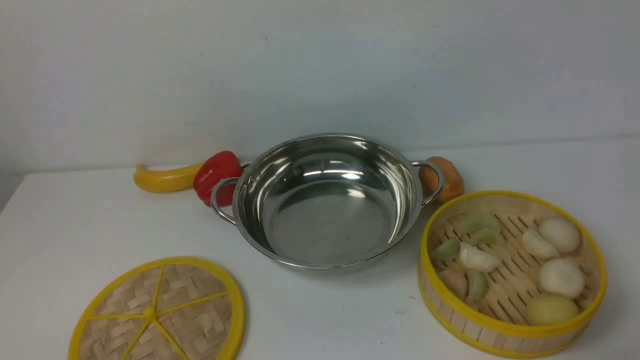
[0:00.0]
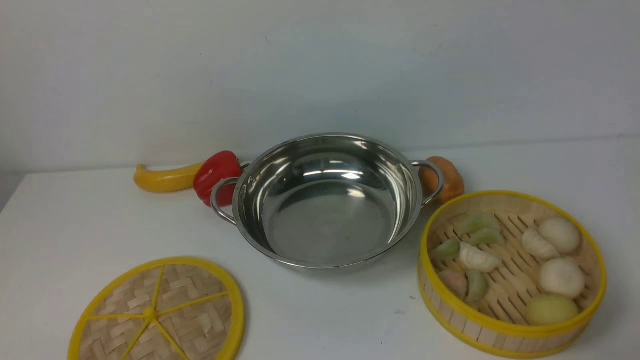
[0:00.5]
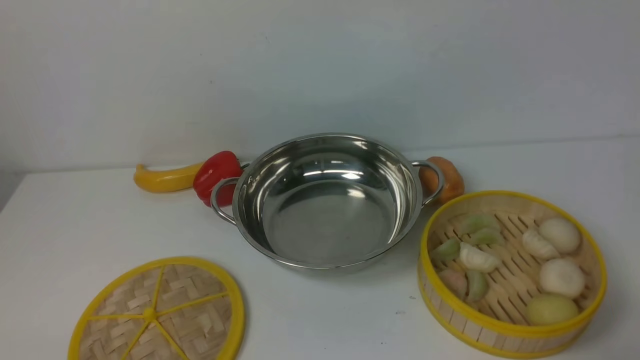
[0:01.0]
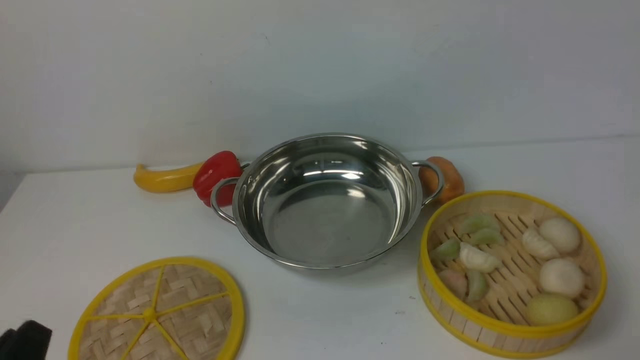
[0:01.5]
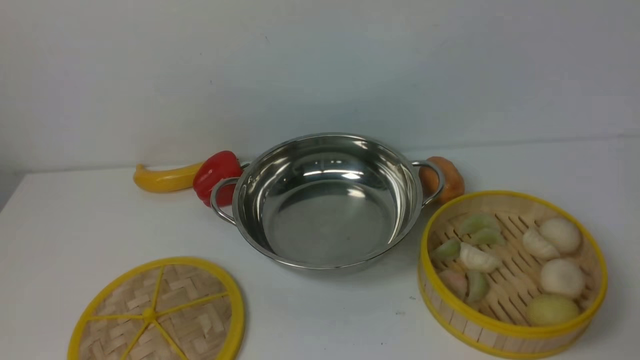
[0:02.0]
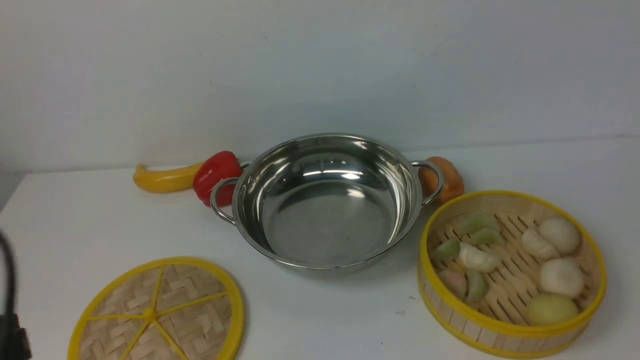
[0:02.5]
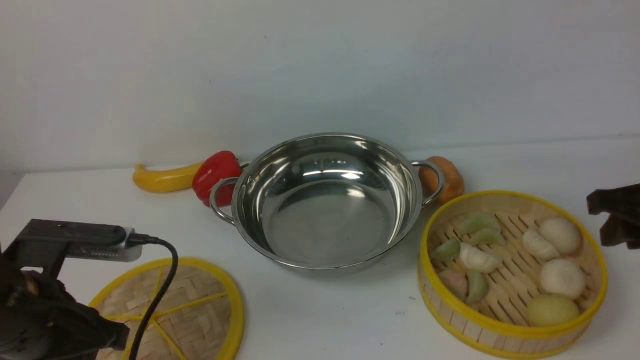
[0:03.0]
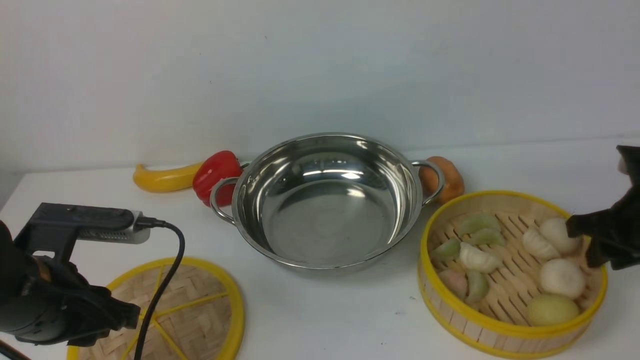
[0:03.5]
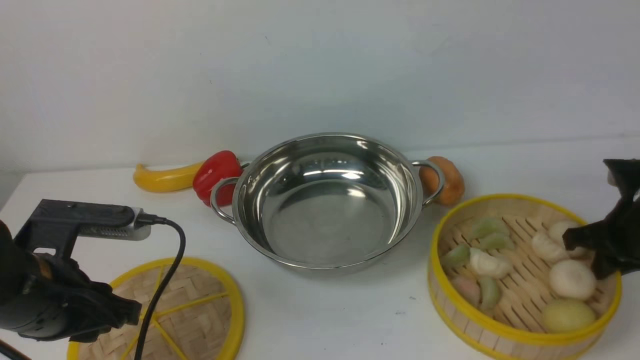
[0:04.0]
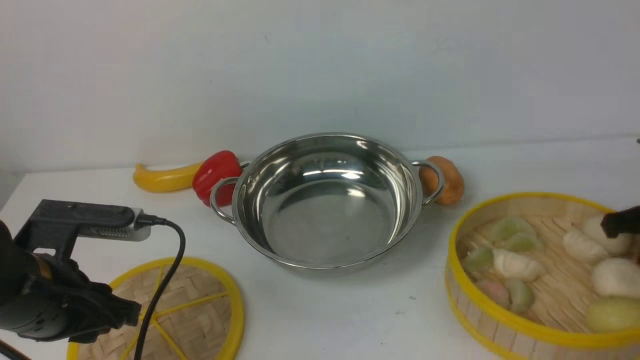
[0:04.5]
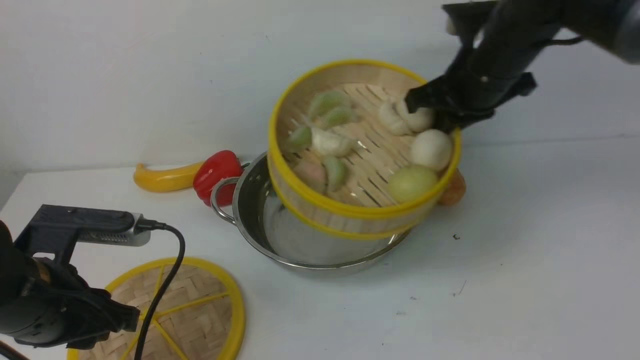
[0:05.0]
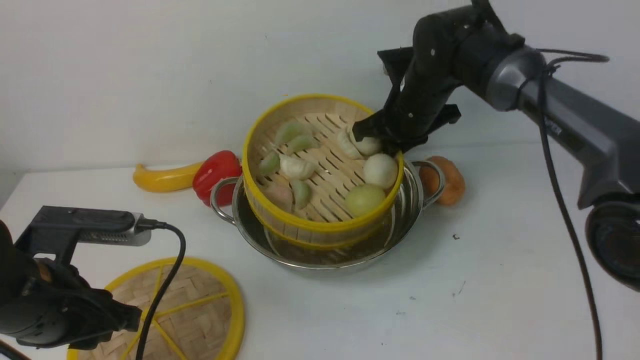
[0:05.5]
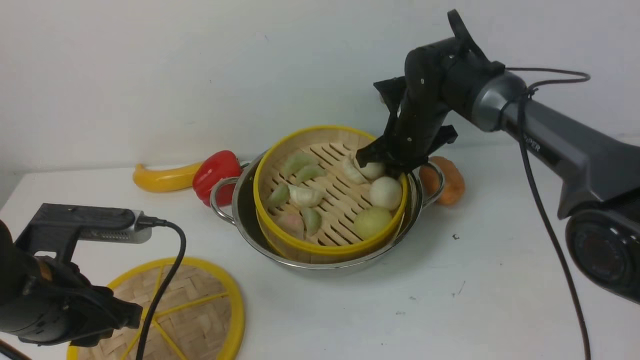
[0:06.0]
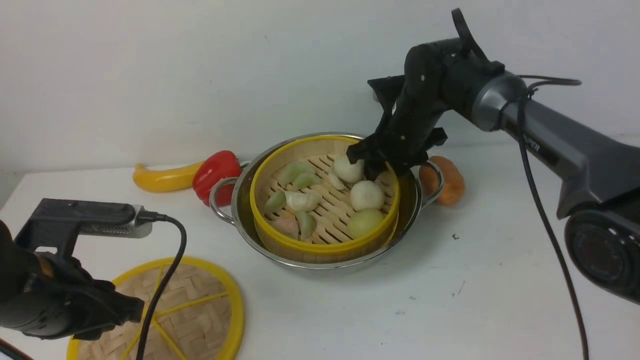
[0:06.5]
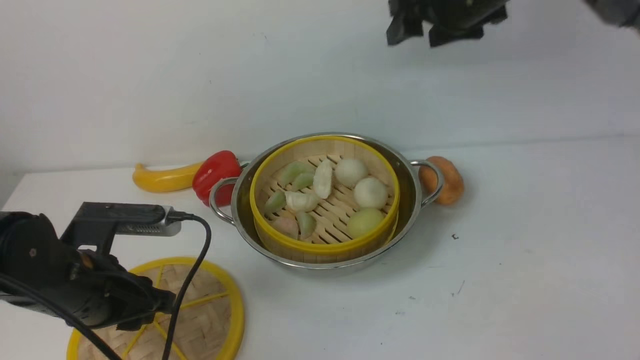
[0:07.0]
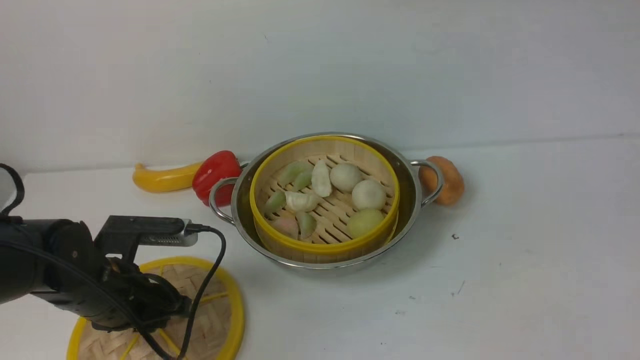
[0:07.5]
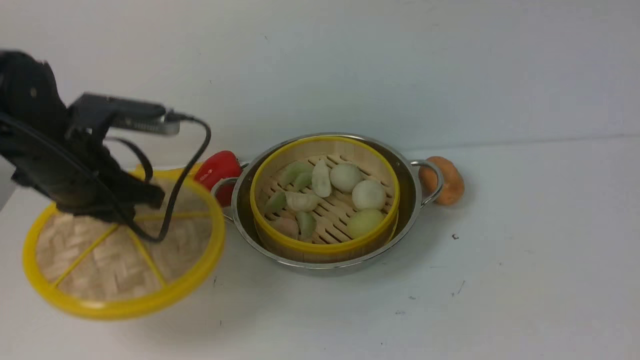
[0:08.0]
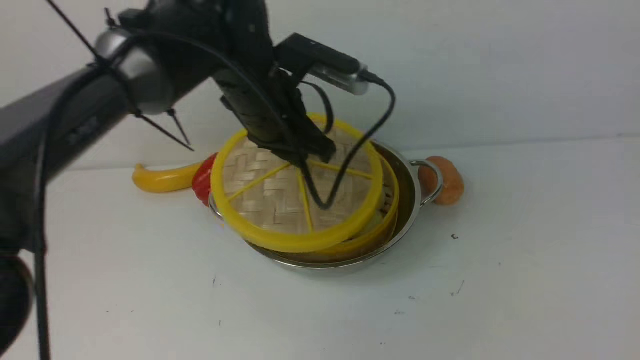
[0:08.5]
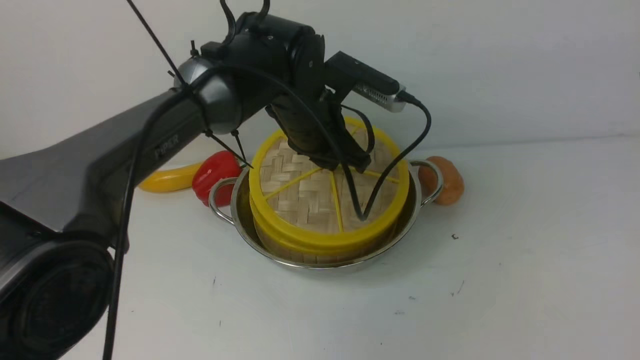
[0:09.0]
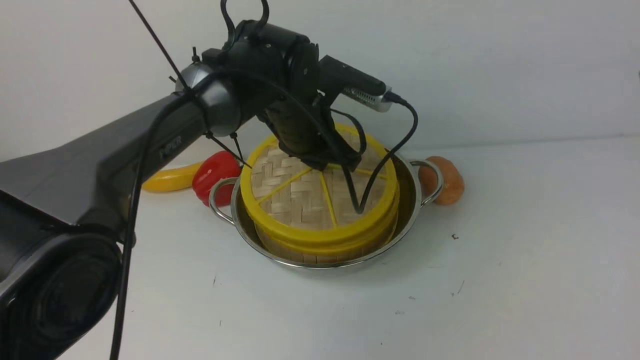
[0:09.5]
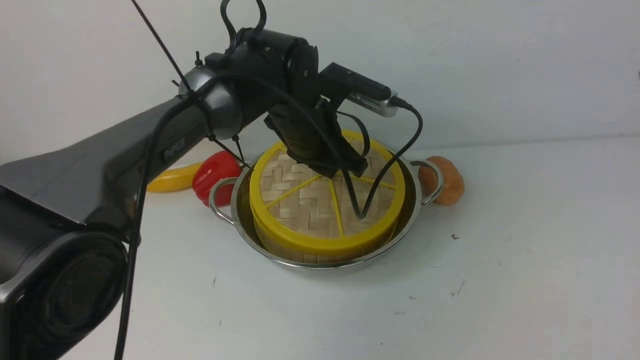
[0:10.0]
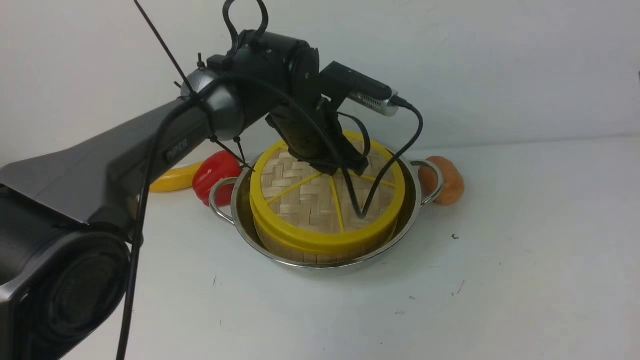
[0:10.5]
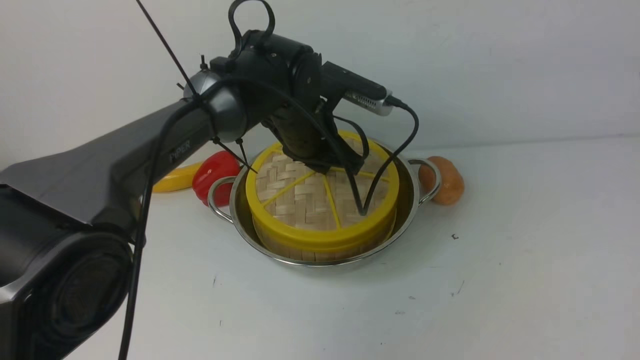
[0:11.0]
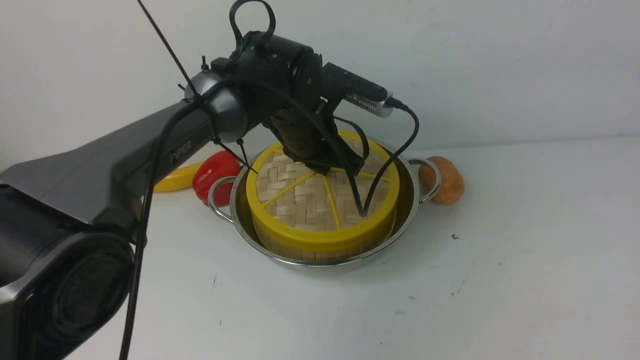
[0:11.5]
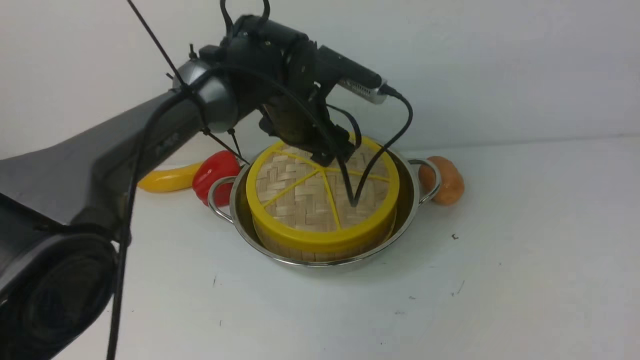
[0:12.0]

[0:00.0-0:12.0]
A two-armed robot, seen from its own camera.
Task of the whole recording: place the steamer in the pot on the white table, and put the lid on the steamer.
Step, 0:00.0 to 0:04.0: use the right arm to lift the steamer closest to it.
Step, 0:04.5 to 0:06.5: use the right arm to put the steamer into the iron steamer pot in the middle.
Step, 0:07.0 to 0:08.0: use the left arm to lift the lid of the steamer.
0:02.0 to 0:04.0: The left gripper shifts roughly 15 cm forward; the right gripper goes roughly 25 cm forward.
0:04.0 to 0:06.0: The right gripper goes roughly 30 cm to the left and forward.
0:06.0 to 0:08.0: The right gripper shifts approximately 40 cm upward and backward, and opens up, while the left gripper heads forward, covering about 10 cm, and closes its fingers.
0:08.0 to 0:10.0: The left gripper travels to the right and forward by some 20 cm. Meanwhile the right gripper goes about 10 cm downward.
0:10.0 to 0:12.0: The left gripper moves approximately 5 cm, and opens up.

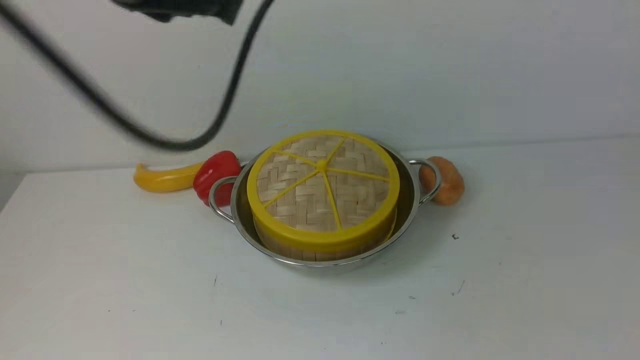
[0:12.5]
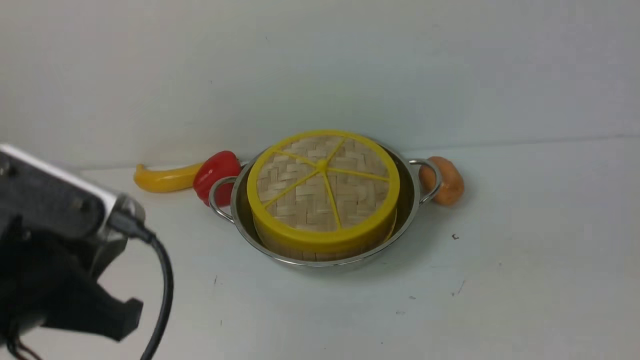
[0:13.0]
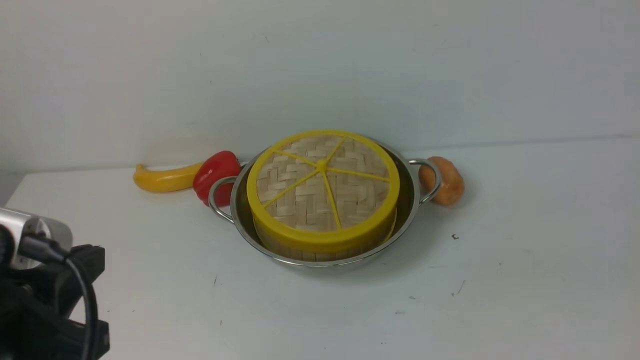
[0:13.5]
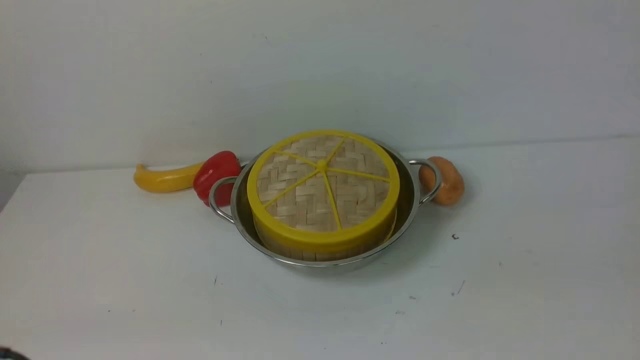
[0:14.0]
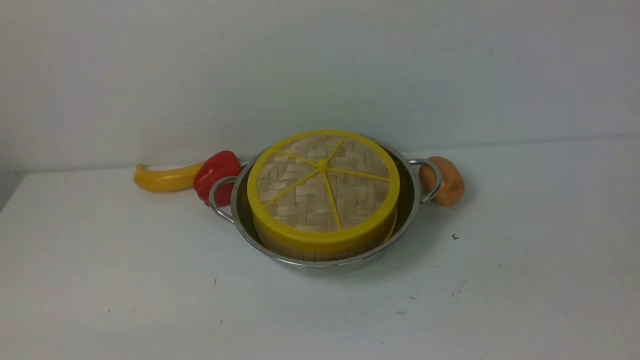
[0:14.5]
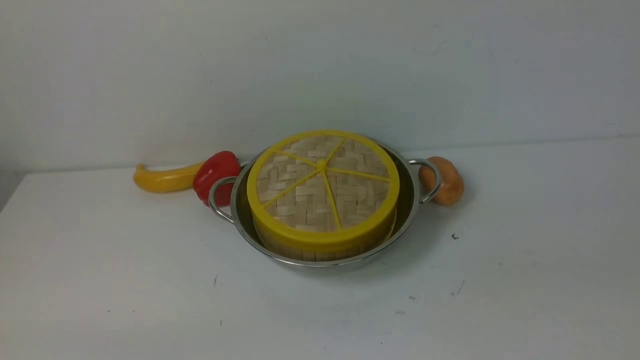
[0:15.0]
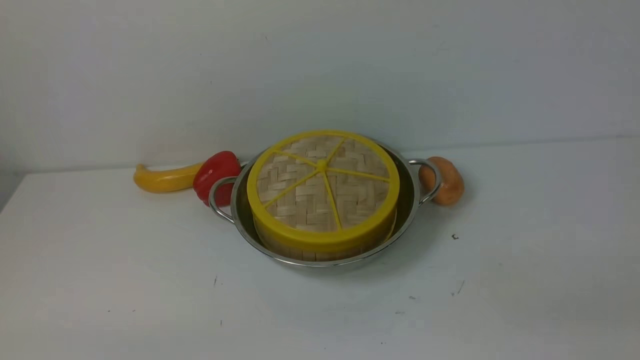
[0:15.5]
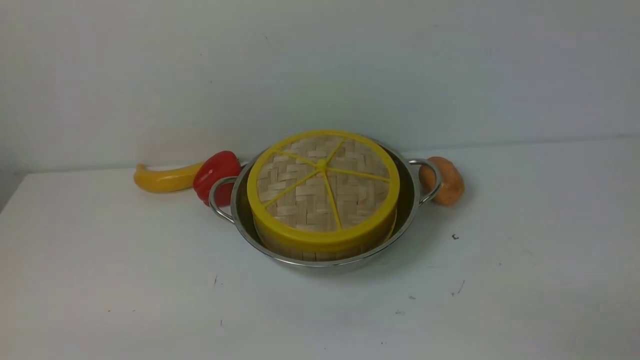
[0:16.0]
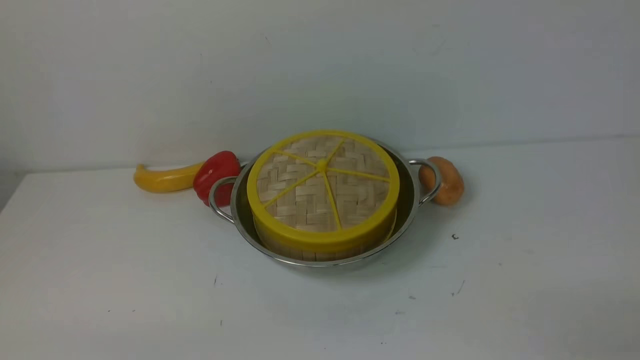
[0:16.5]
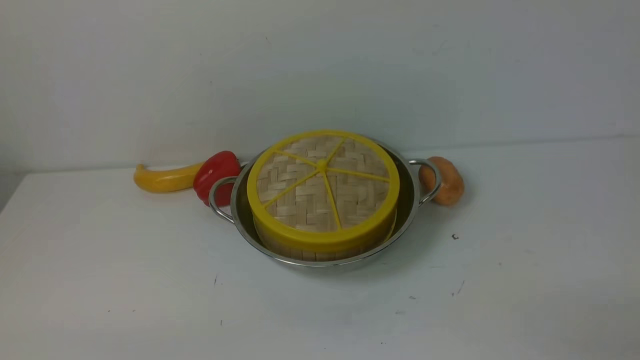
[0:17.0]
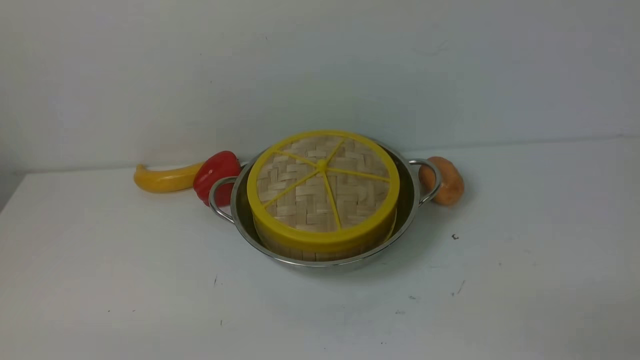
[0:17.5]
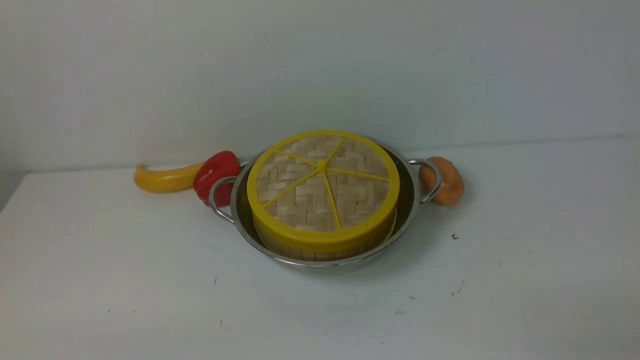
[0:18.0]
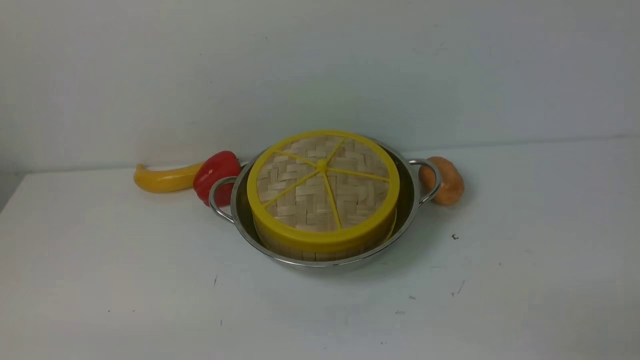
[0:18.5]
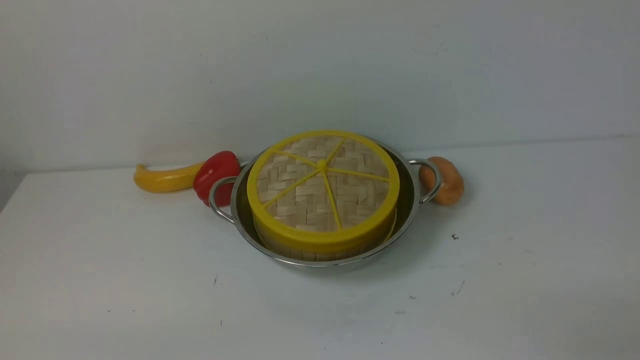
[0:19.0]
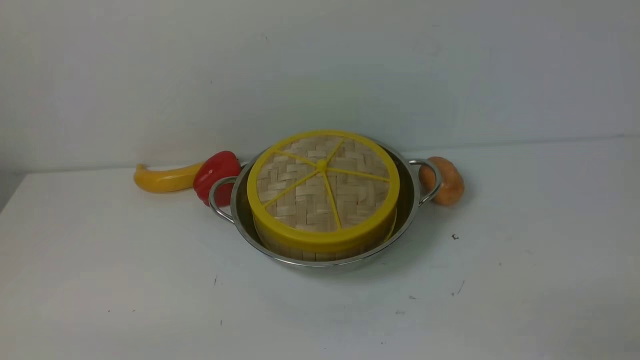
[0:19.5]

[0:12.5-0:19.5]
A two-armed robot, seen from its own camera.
Task of the whole recording: place the steamer in the pot on the white table, and put the lid on the steamer.
0:12.5 to 0:14.5: The right gripper moves downward, some 15 cm; the left gripper travels downward, backward and to the left by about 40 cm.
0:16.0 to 0:19.5: Both grippers stay about where they are.
